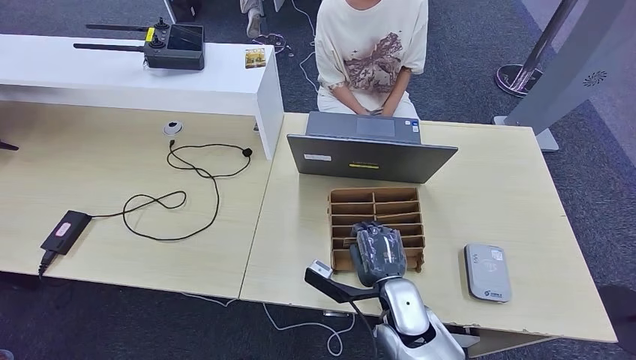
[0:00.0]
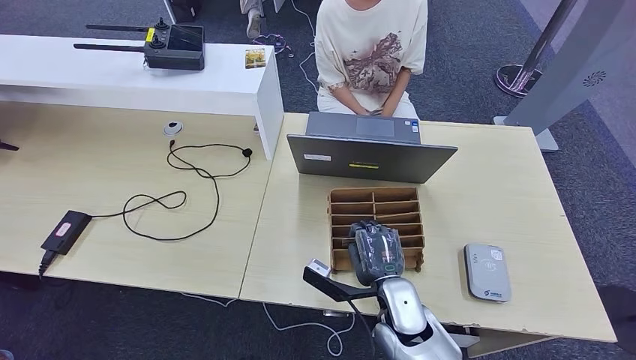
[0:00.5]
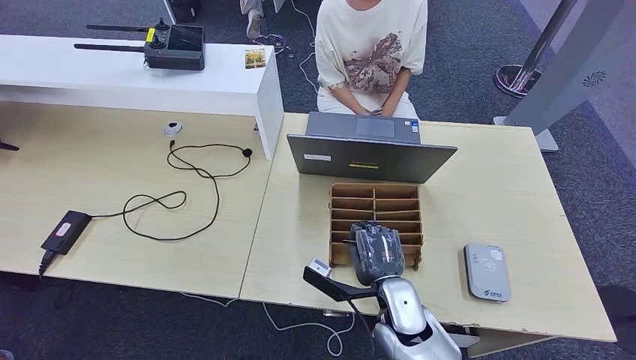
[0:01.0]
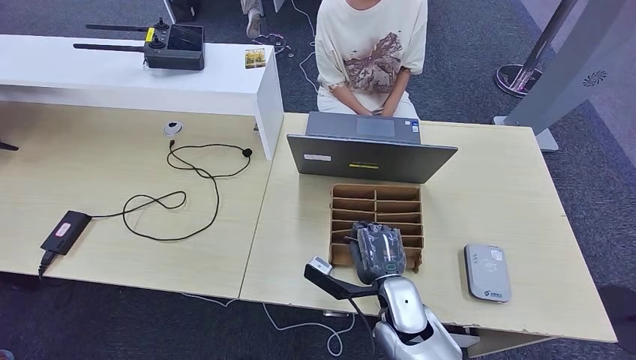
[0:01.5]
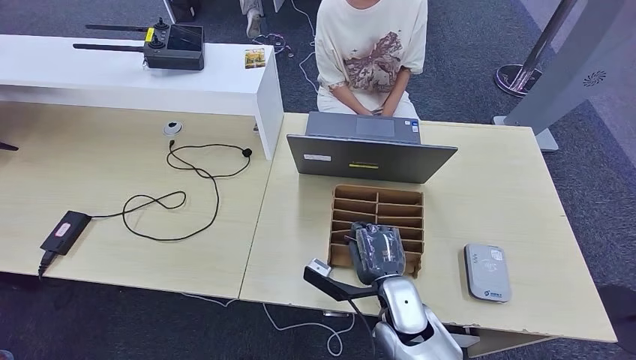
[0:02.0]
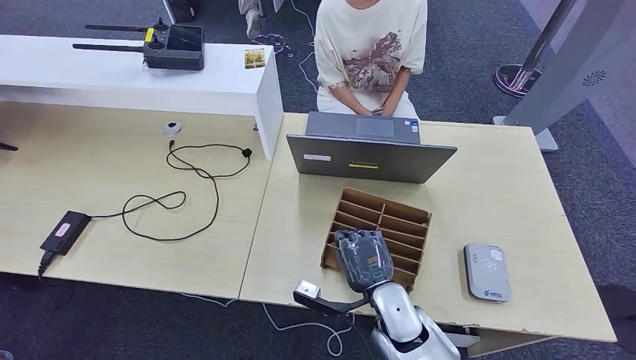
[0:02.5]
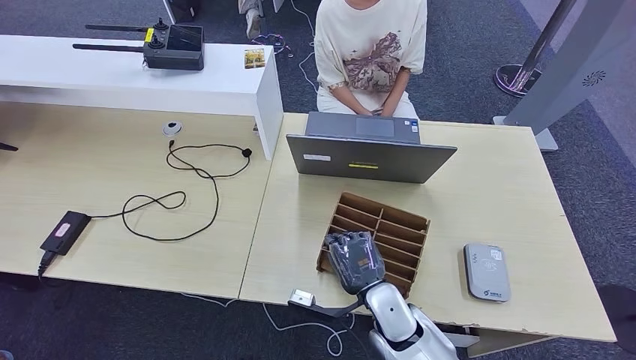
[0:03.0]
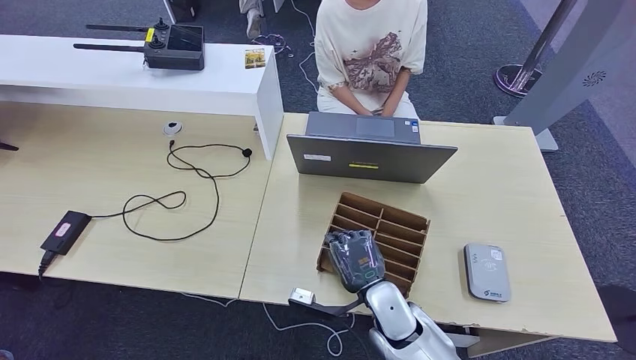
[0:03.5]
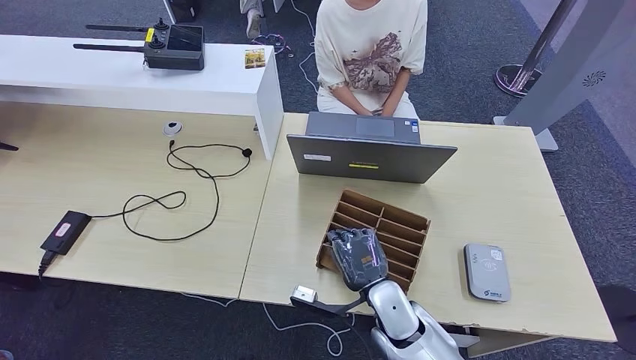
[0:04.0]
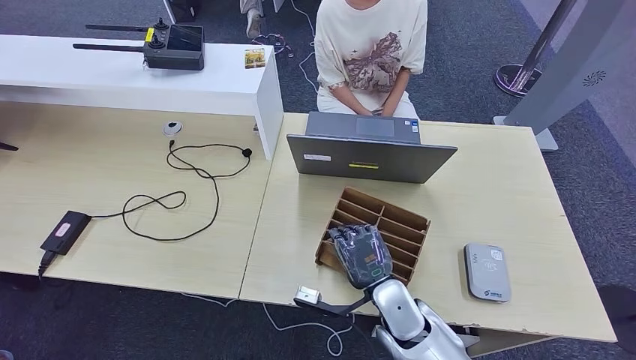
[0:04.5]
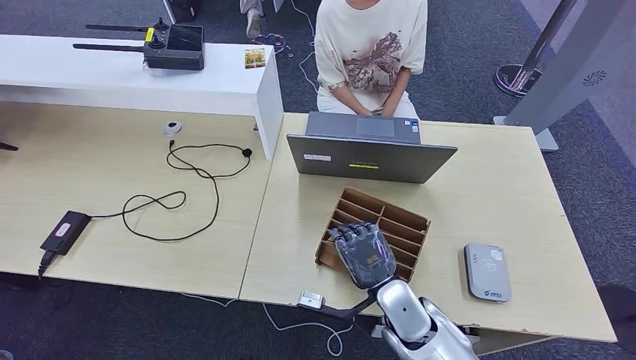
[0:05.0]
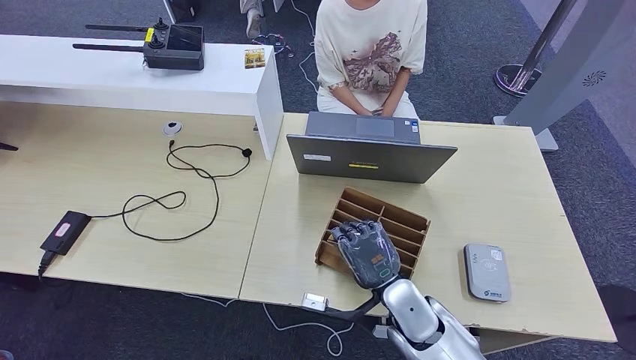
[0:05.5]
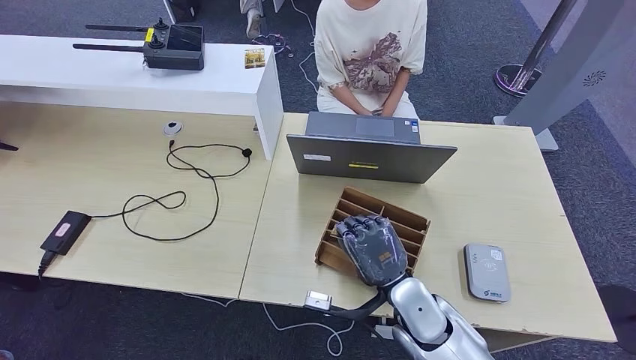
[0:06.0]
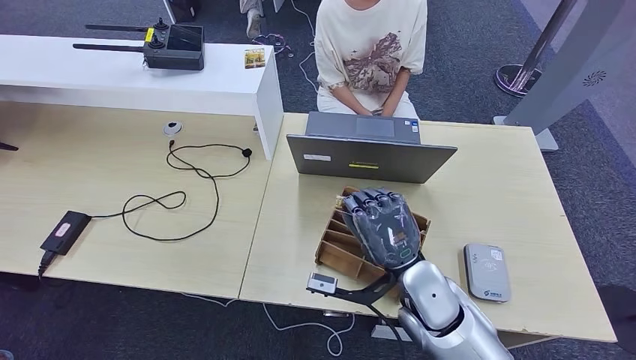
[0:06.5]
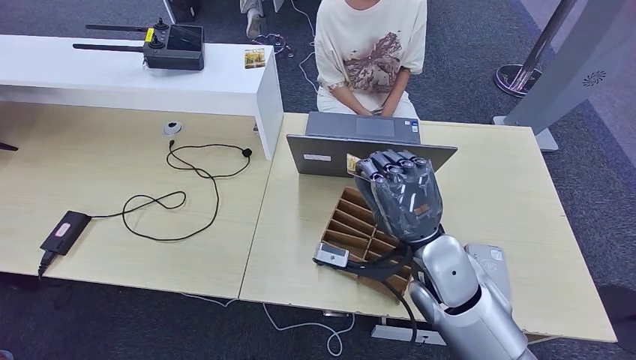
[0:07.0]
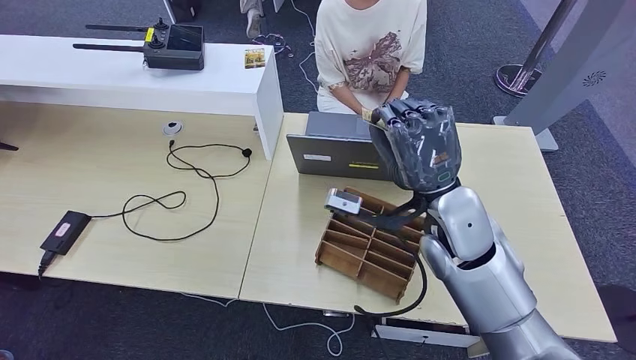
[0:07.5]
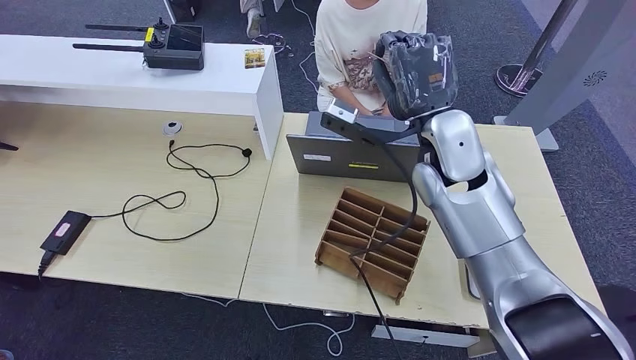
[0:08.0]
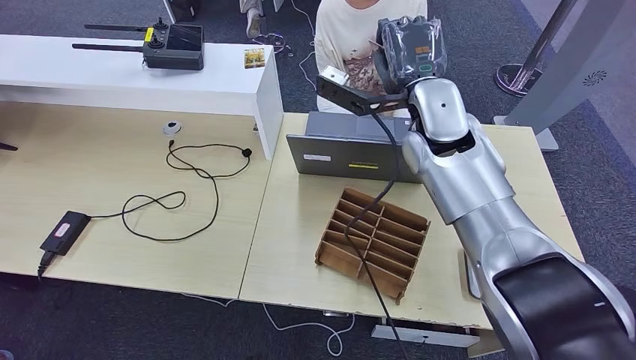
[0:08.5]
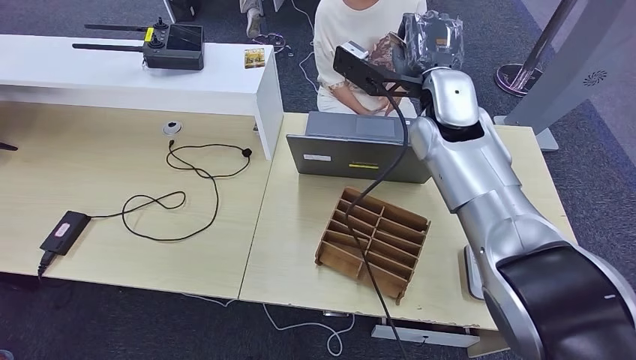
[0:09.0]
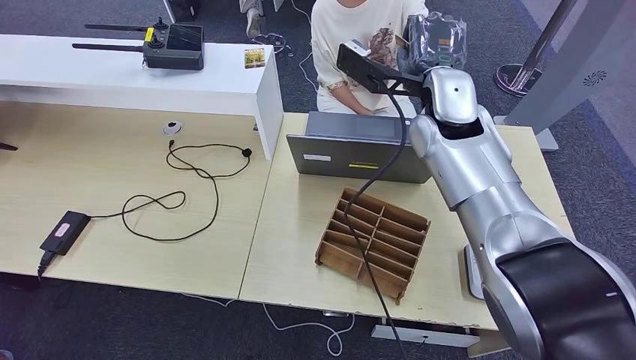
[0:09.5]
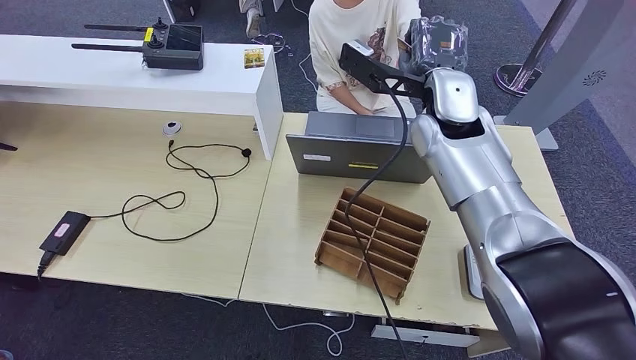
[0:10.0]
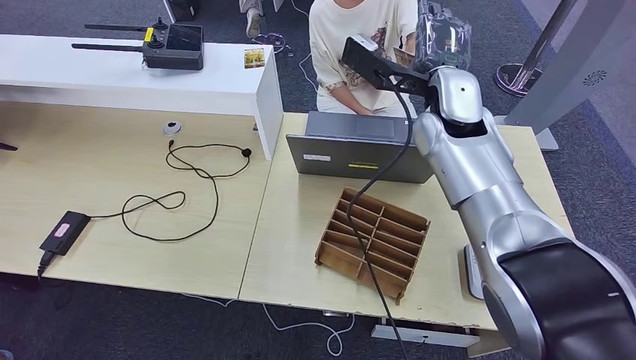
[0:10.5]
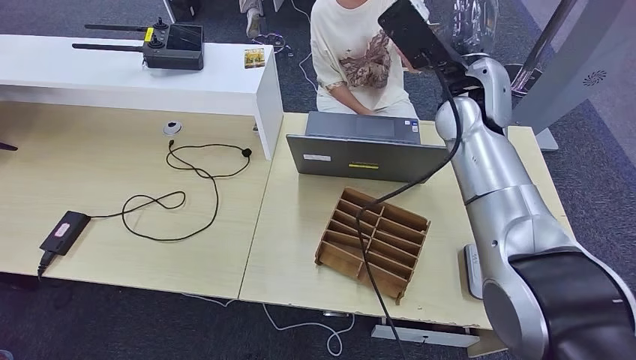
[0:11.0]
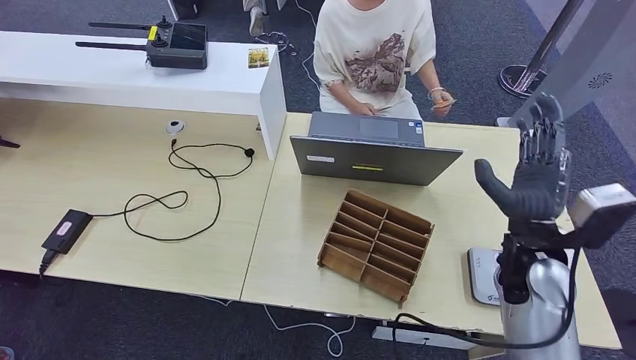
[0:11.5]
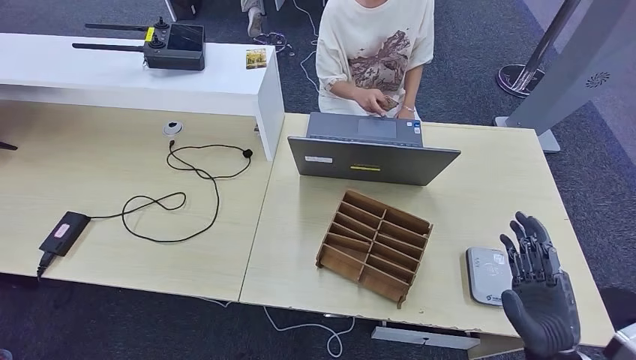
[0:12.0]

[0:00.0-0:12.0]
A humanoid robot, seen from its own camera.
Step, 0:00.0 to 0:07.5: Pick up the room key from the key card box.
Step, 0:08.0 to 0:12.0: Hand the room key to the person.
0:00.0 to 0:02.0: Both hands stay about where they are.
0:02.0 to 0:04.0: The hands stay close to where they were, moving slightly.
0:04.0 to 0:06.0: The hands move only a little.
0:06.0 to 0:08.0: The right hand heads upward and forward, covering about 30 cm.
